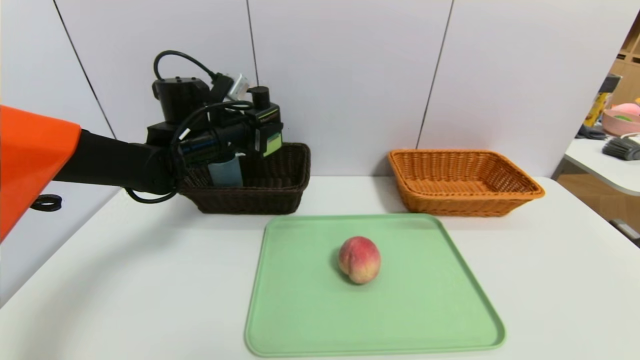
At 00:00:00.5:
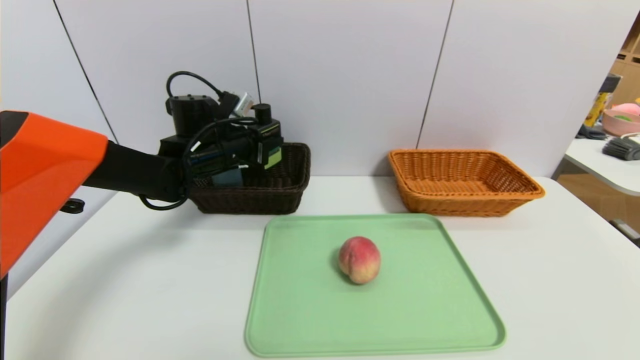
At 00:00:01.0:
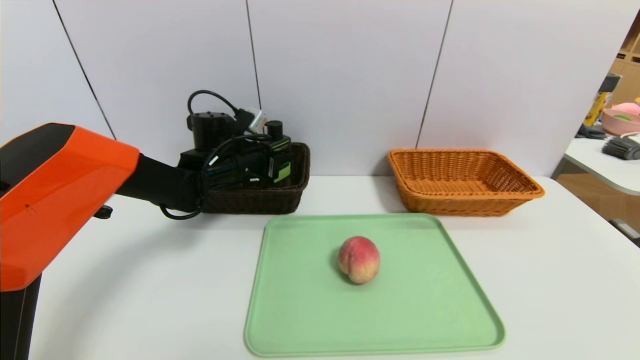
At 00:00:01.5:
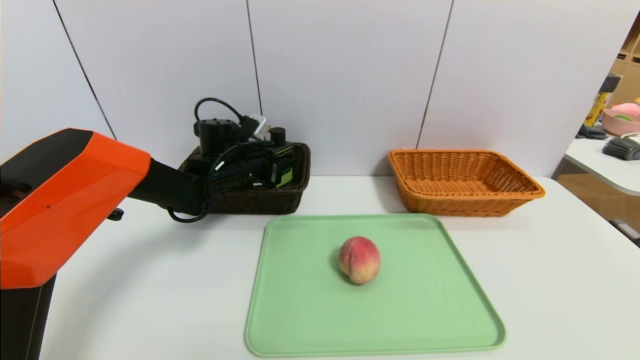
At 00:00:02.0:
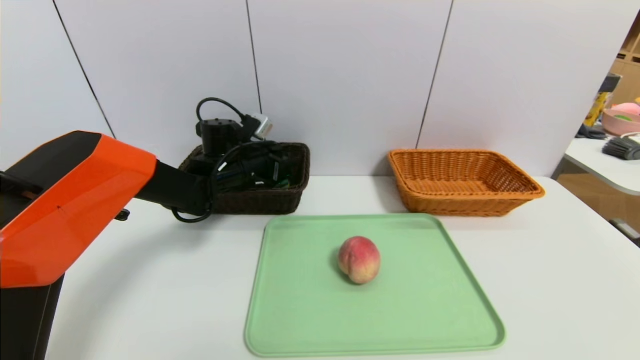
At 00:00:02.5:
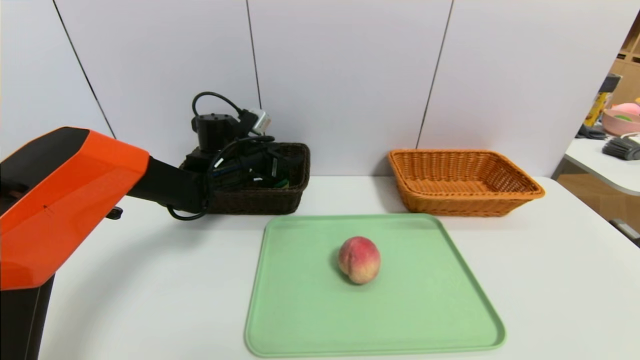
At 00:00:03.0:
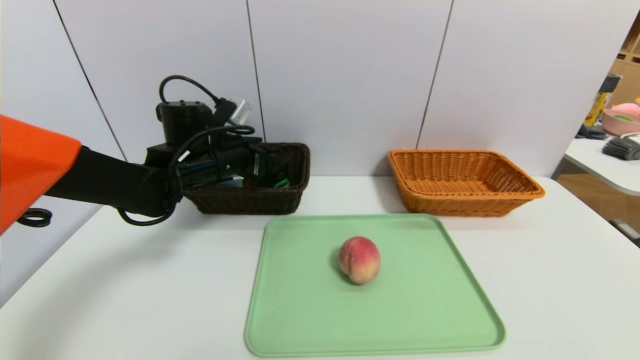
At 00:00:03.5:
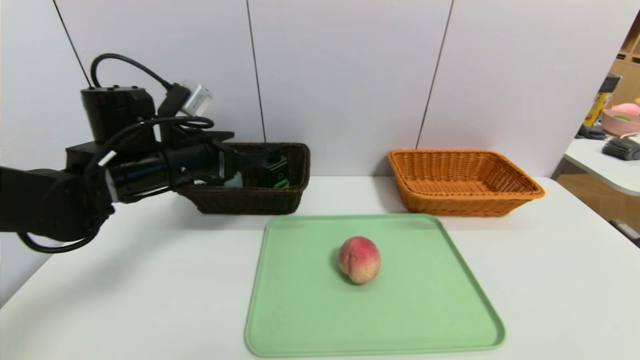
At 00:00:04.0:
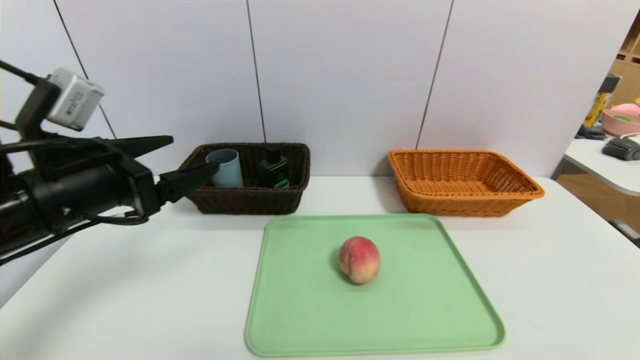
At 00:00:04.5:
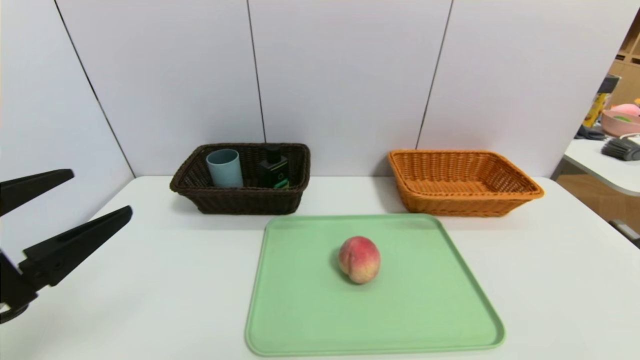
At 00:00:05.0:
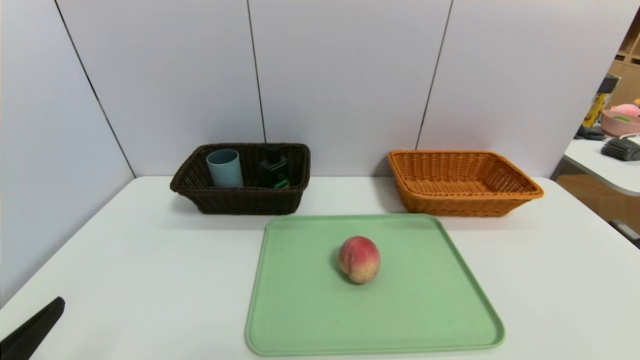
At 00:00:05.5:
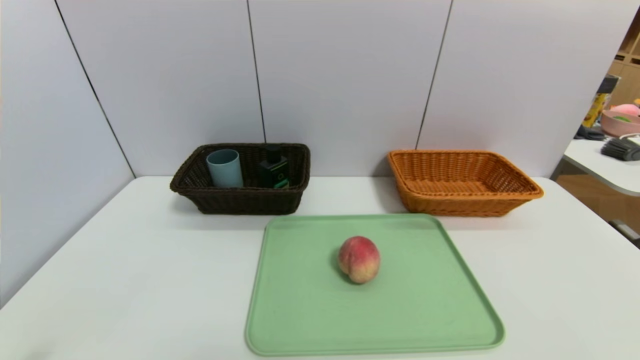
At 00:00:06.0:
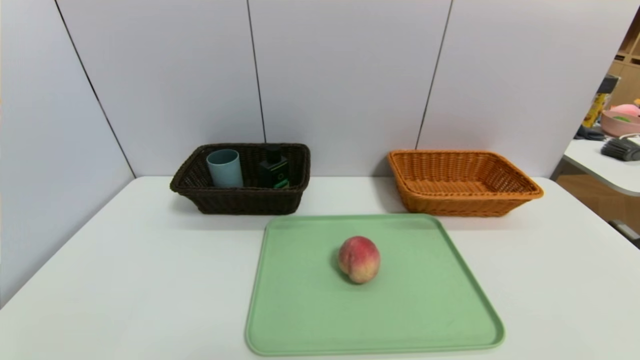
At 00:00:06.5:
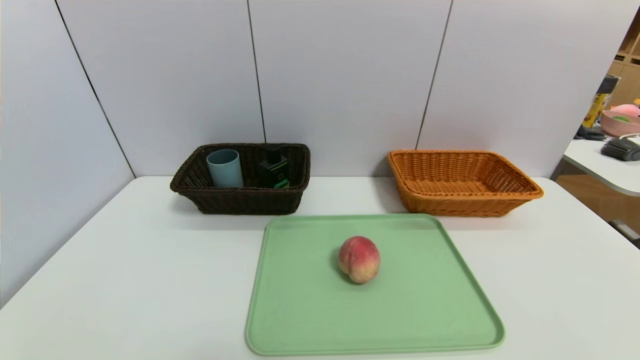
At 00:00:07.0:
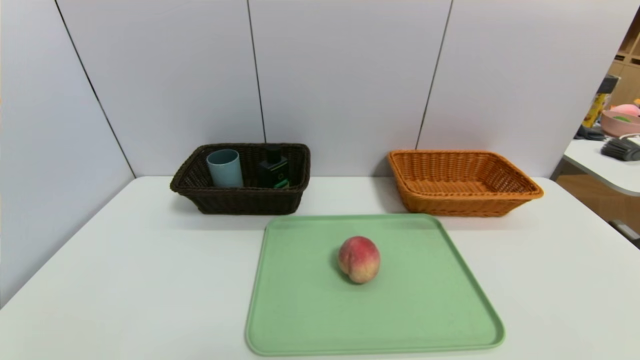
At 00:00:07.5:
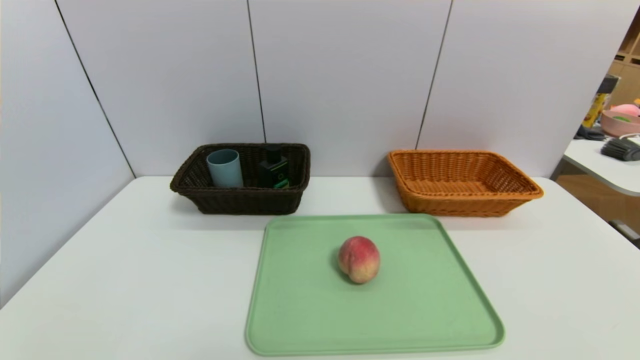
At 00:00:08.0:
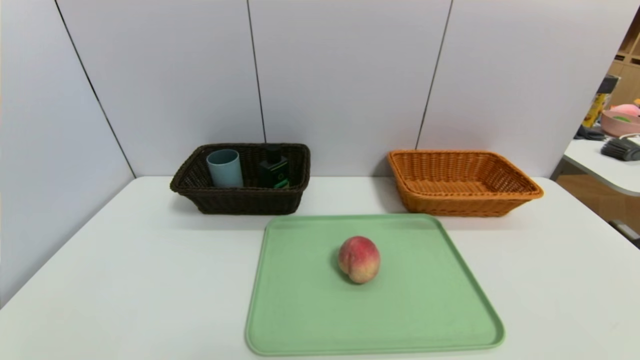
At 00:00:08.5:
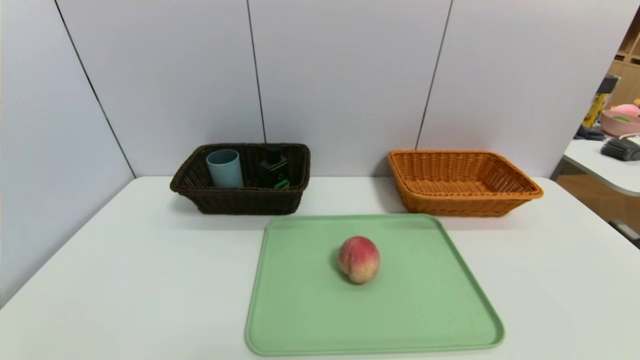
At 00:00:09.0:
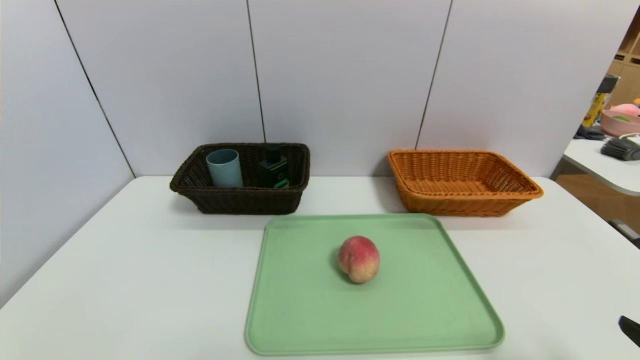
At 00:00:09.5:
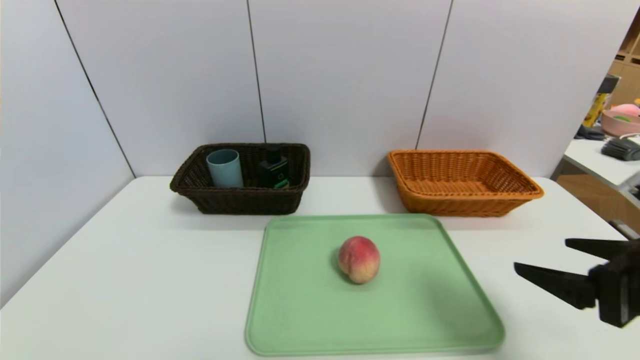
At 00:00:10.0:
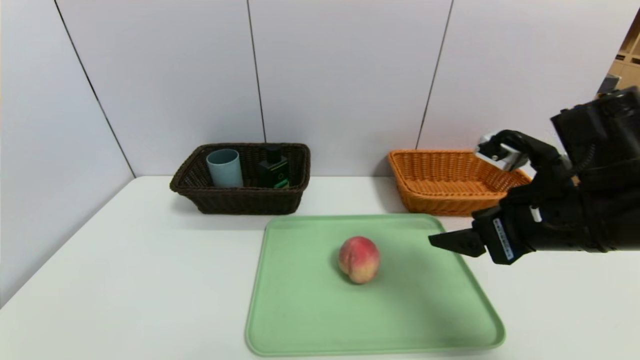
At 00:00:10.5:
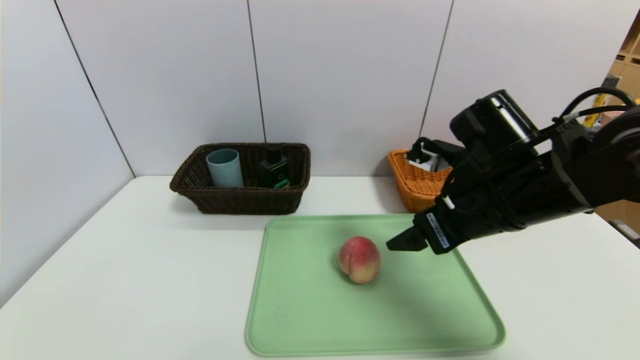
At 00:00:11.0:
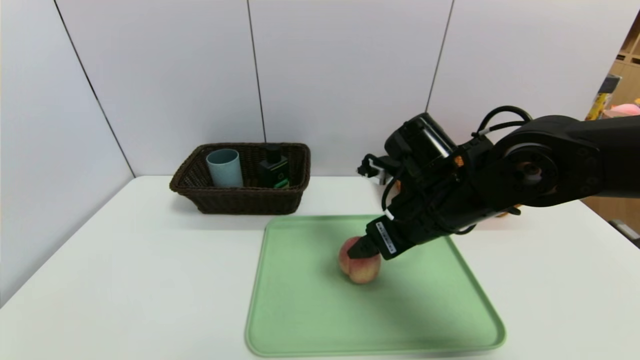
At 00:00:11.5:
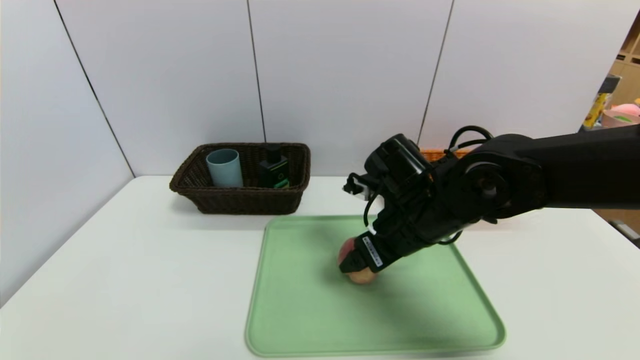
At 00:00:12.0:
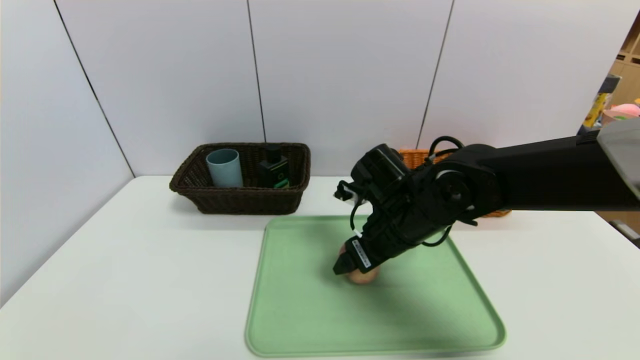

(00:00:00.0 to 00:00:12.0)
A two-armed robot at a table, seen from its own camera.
Task of the whole recording: place the food in the right basket with the right gripper, and place the non food items in the left basket with the left gripper.
Step, 00:00:00.0 - 00:00:02.0: Grasp the hard cleanser and put it in the left basket.
00:00:00.0 - 00:00:02.0: The left gripper heads downward, covering approximately 5 cm, and opens up.
00:00:02.0 - 00:00:04.0: The left gripper goes about 25 cm backward, and opens up.
00:00:04.0 - 00:00:06.0: The left gripper travels backward and downward by about 25 cm.
00:00:06.0 - 00:00:08.0: The two grippers keep their place.
00:00:08.0 - 00:00:10.0: The right gripper shifts about 30 cm forward, upward and to the left.
00:00:10.0 - 00:00:12.0: The right gripper shifts roughly 15 cm to the left, forward and downward.

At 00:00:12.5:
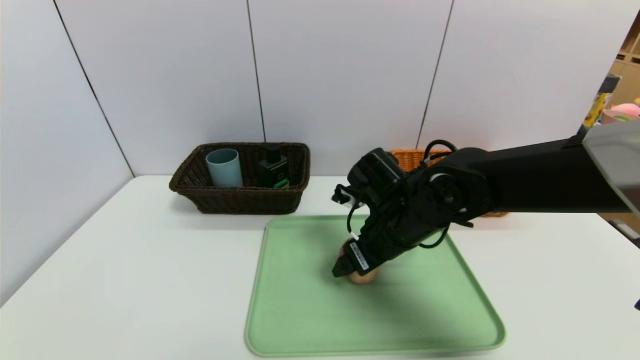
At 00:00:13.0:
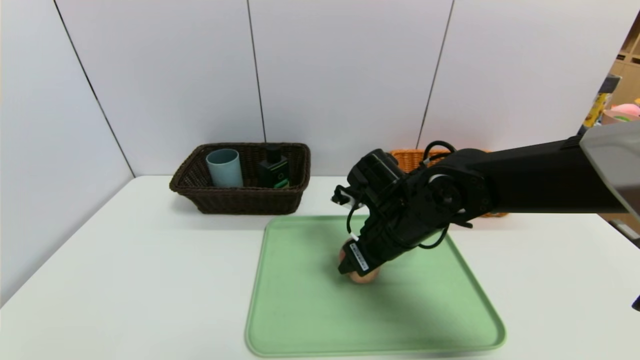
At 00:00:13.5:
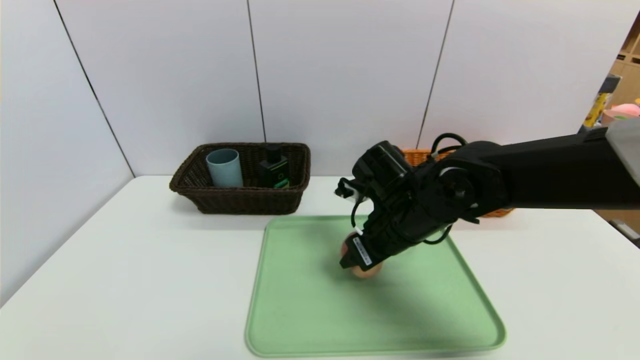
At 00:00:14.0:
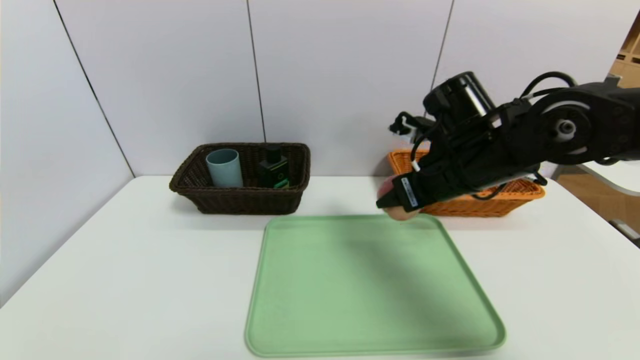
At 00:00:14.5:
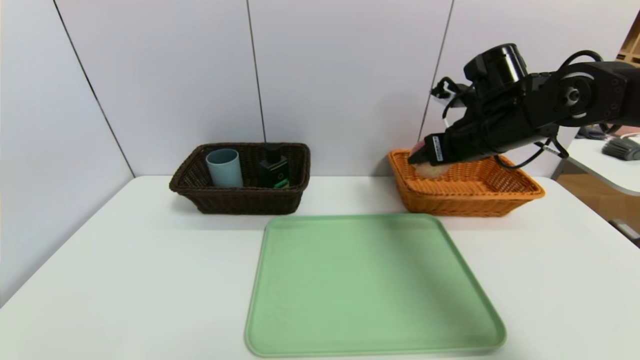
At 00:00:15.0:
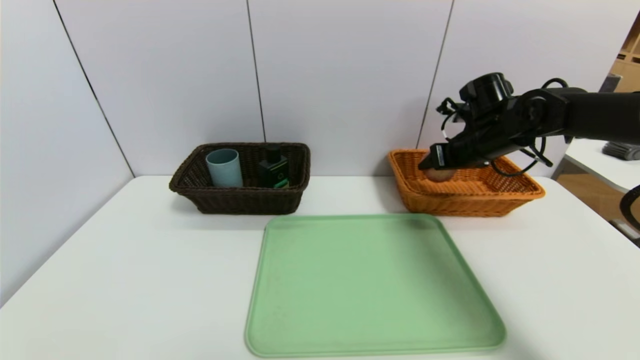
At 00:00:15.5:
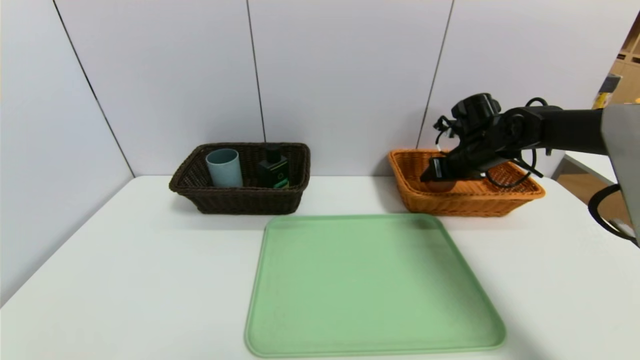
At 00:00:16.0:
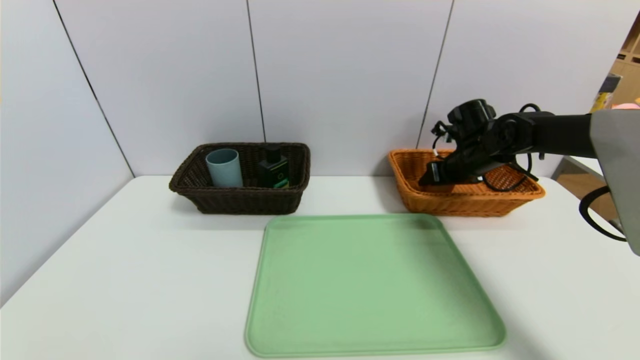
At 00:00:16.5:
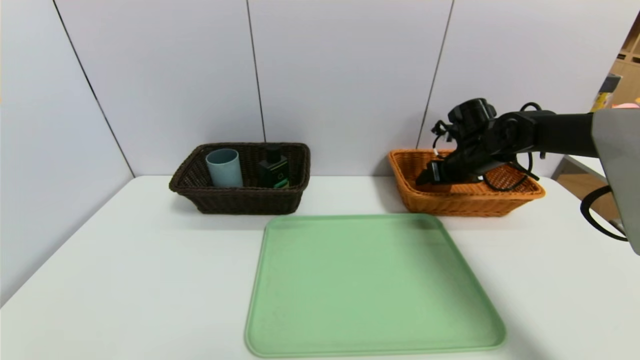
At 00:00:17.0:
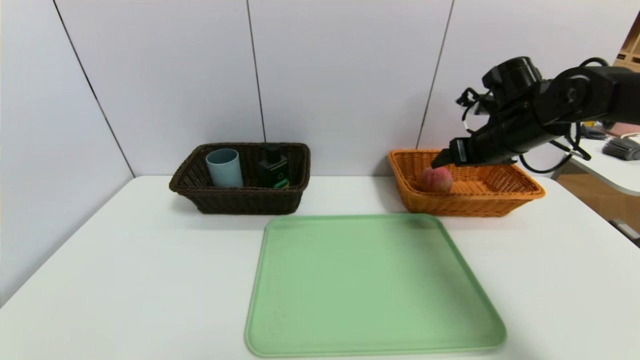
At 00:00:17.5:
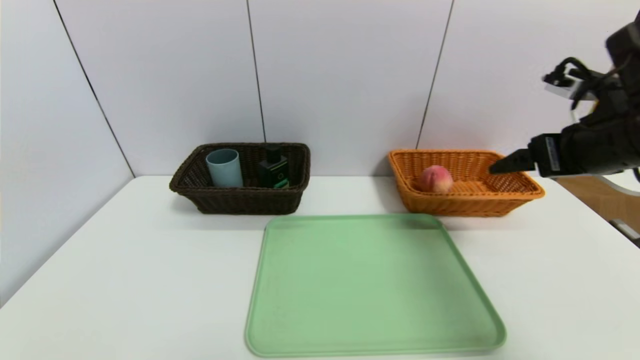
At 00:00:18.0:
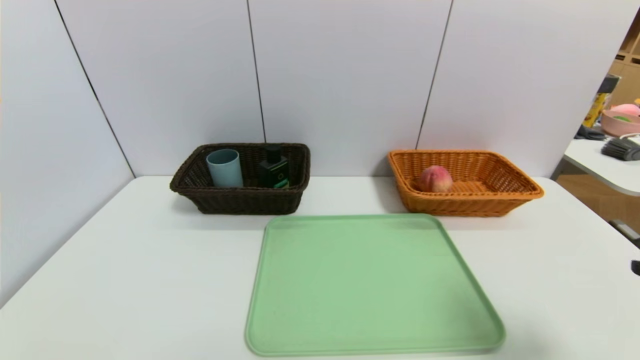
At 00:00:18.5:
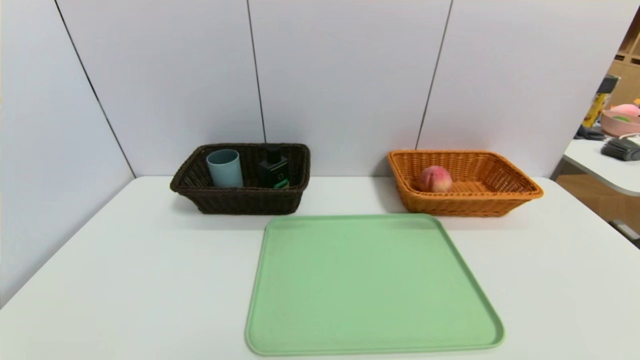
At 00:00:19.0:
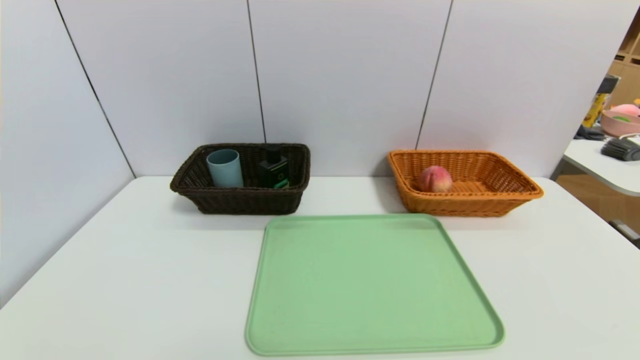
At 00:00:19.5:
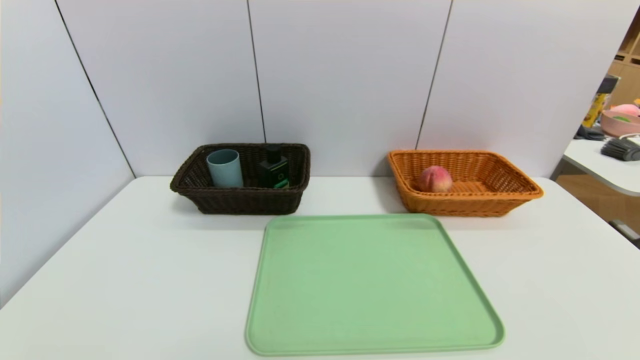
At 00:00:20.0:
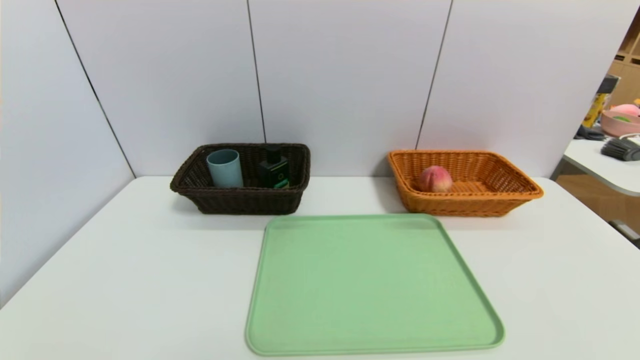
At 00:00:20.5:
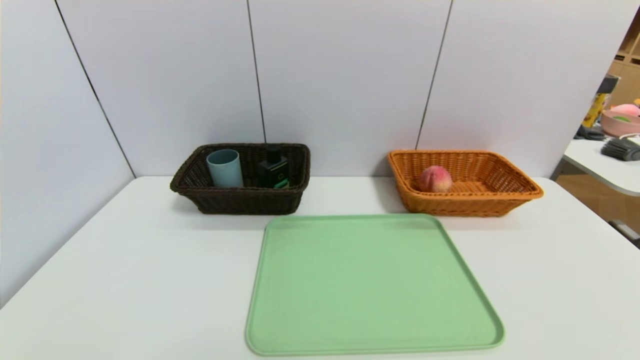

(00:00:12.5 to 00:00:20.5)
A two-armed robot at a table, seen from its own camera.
Task of the whole recording: place the food in the right basket with the right gripper, and place the non food items in the left basket with the left gripper.
Step, 00:00:12.5 - 00:00:16.5: Grasp the peach and put it in the right basket.
00:00:12.5 - 00:00:14.5: The right gripper heads to the right, upward and forward, covering approximately 20 cm, and closes up.
00:00:14.5 - 00:00:16.5: The right gripper heads downward and forward, covering roughly 10 cm, and opens.
00:00:16.5 - 00:00:18.5: The right gripper is displaced backward by about 50 cm.
